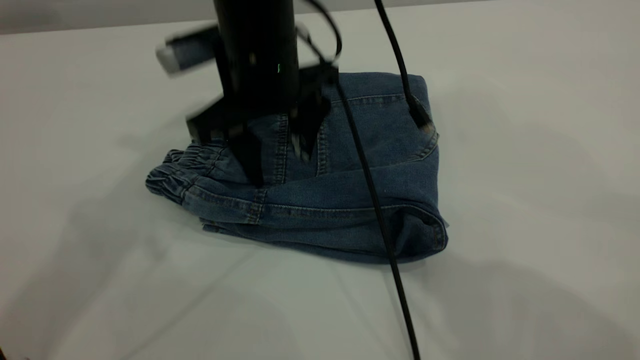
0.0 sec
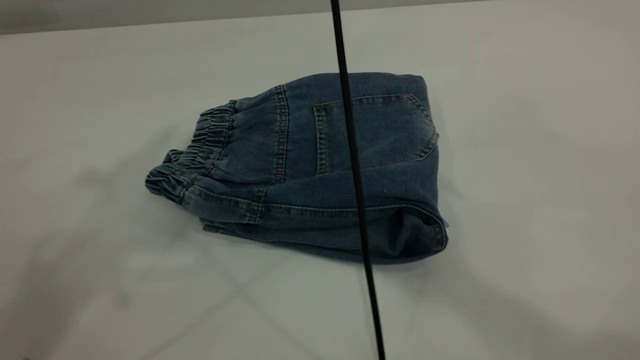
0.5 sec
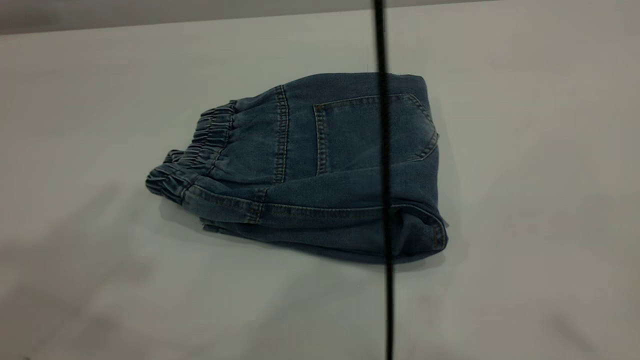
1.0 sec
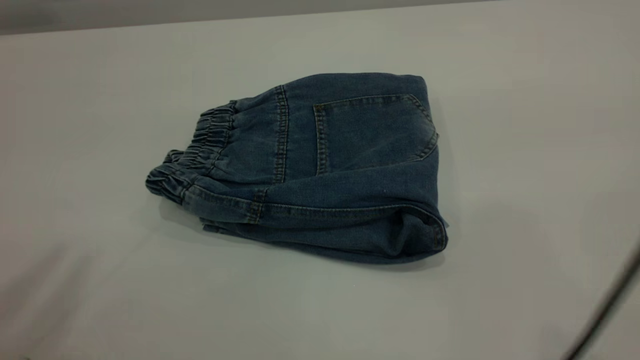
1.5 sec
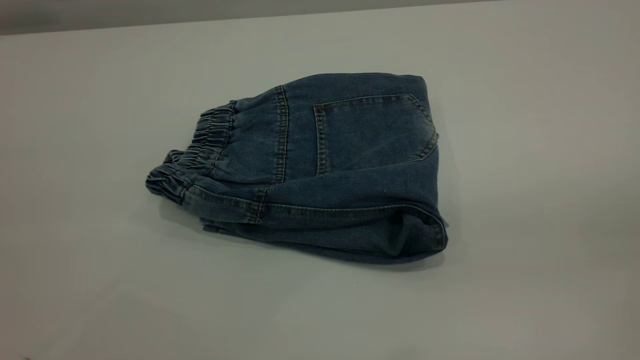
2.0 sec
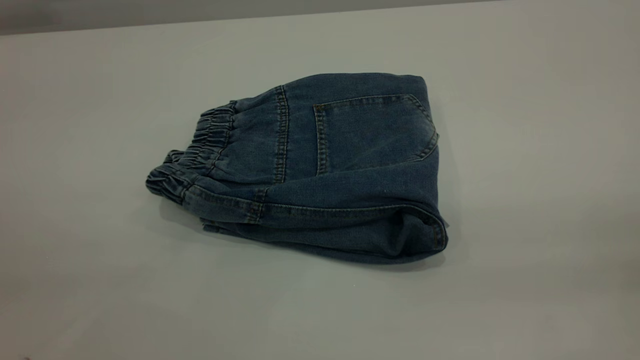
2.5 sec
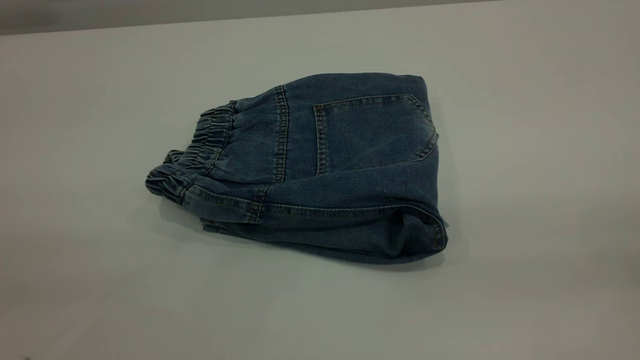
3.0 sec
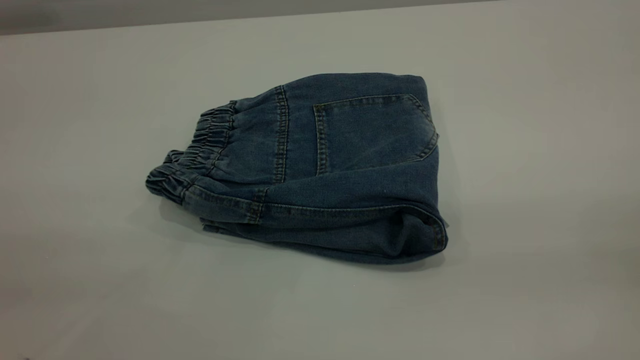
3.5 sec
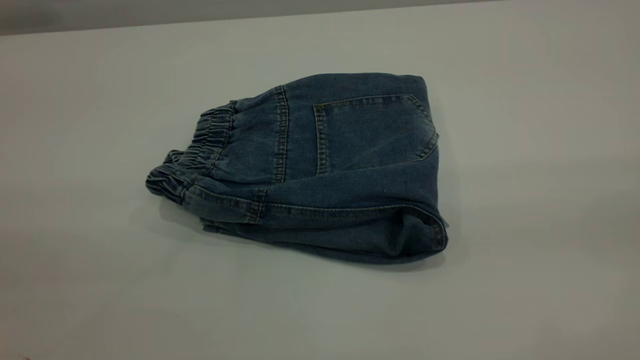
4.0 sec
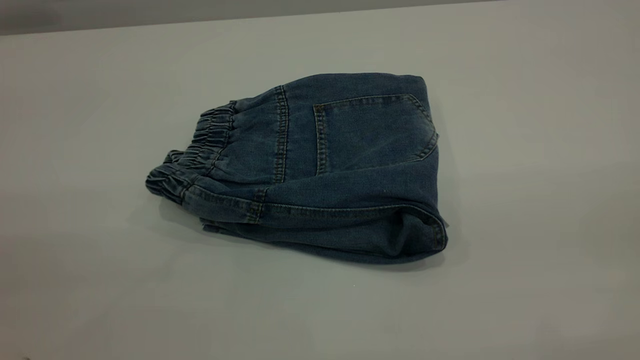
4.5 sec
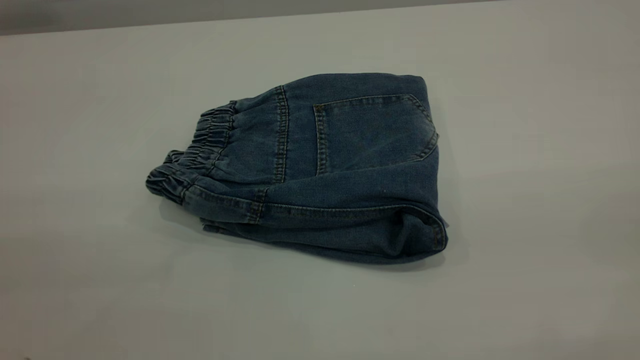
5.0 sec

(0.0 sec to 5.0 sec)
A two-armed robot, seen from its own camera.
0.0 sec - 2.5 sec: The right gripper goes some 50 cm to the right, backward and upward. Meanwhile the left gripper is displaced backward by some 30 cm.
